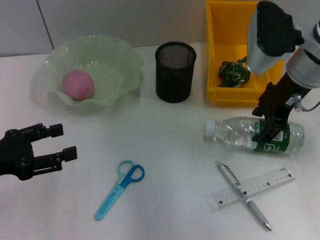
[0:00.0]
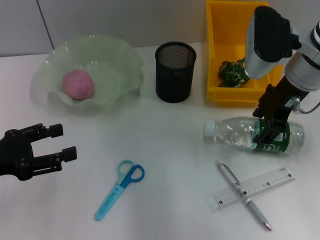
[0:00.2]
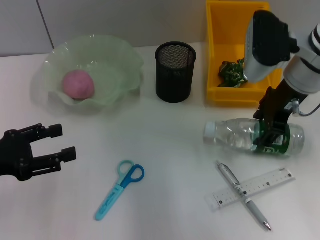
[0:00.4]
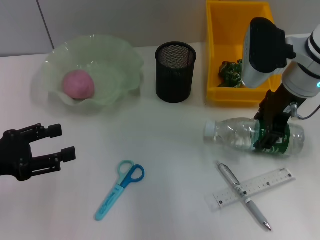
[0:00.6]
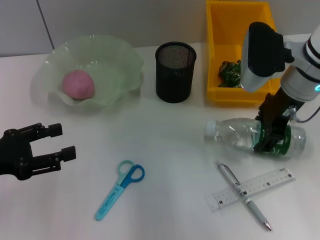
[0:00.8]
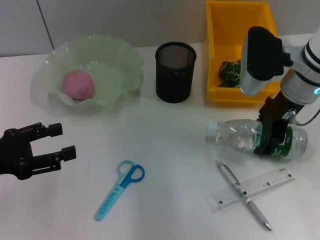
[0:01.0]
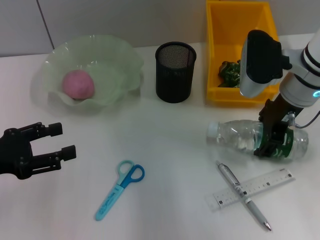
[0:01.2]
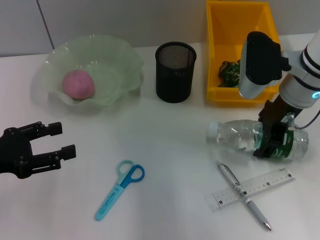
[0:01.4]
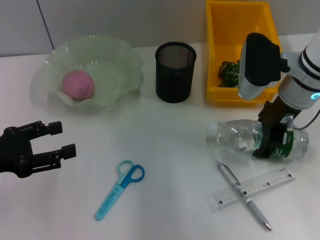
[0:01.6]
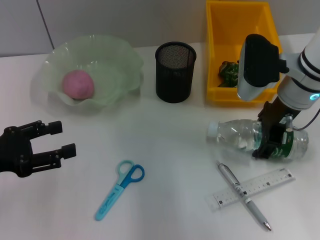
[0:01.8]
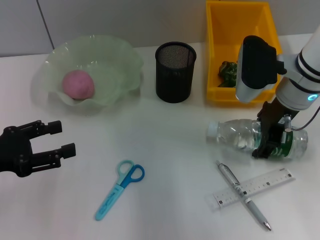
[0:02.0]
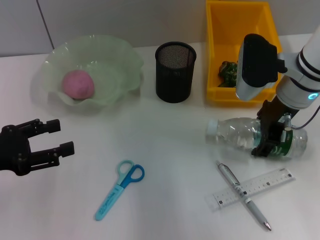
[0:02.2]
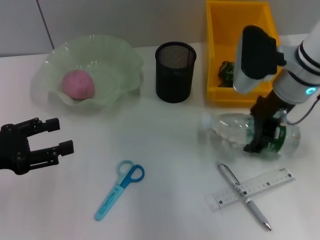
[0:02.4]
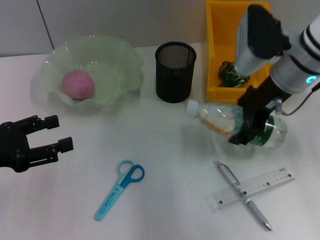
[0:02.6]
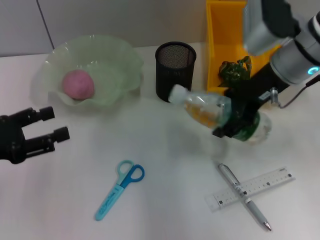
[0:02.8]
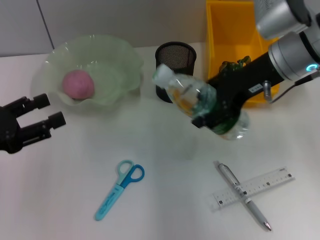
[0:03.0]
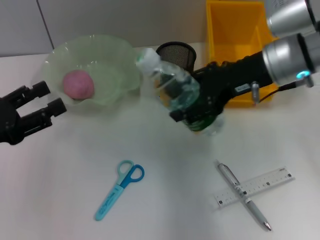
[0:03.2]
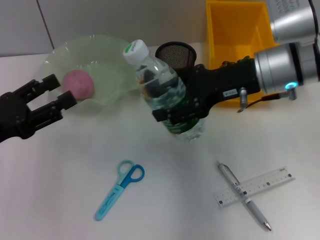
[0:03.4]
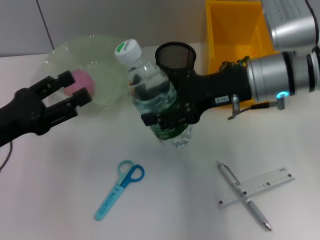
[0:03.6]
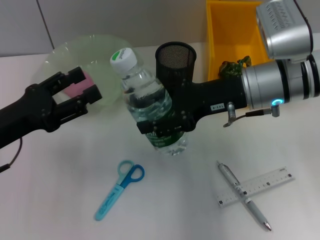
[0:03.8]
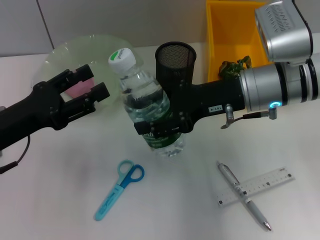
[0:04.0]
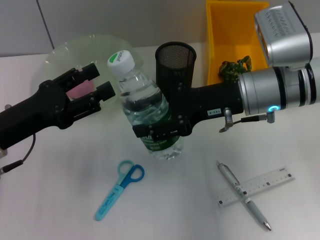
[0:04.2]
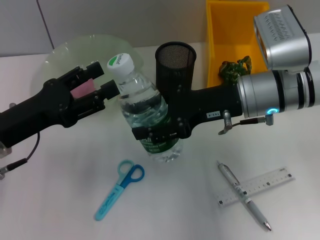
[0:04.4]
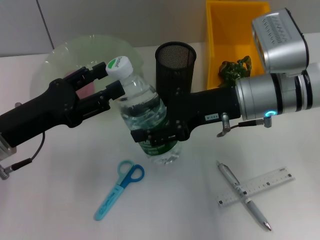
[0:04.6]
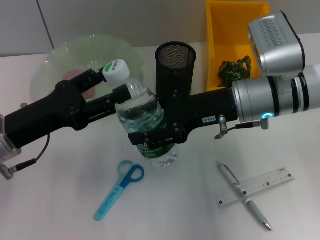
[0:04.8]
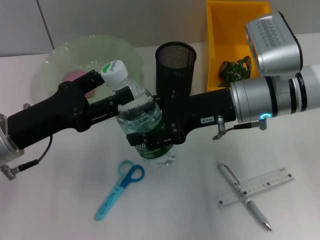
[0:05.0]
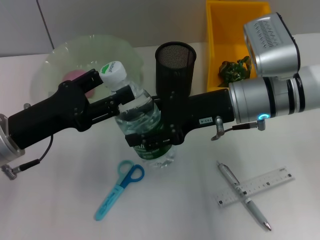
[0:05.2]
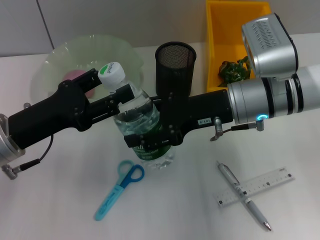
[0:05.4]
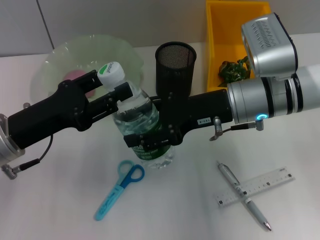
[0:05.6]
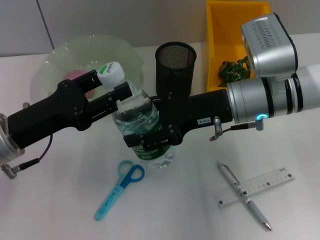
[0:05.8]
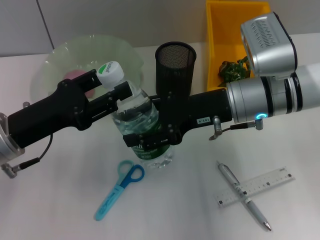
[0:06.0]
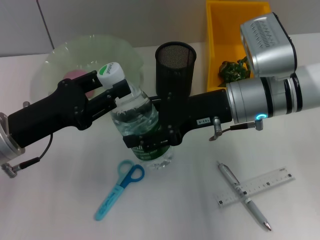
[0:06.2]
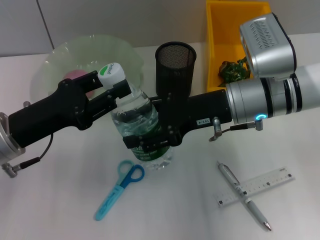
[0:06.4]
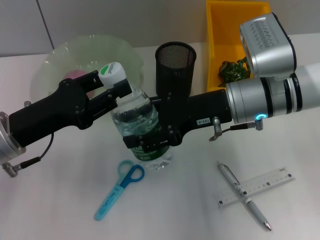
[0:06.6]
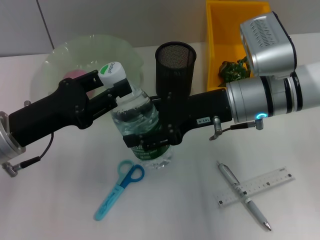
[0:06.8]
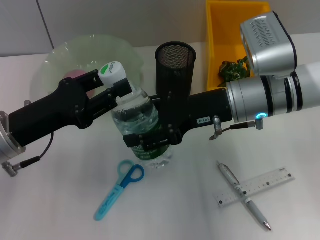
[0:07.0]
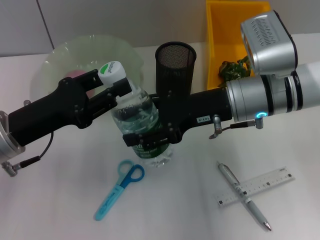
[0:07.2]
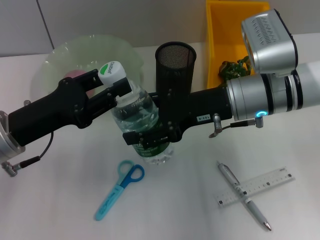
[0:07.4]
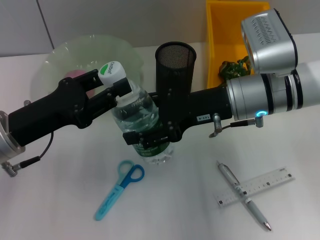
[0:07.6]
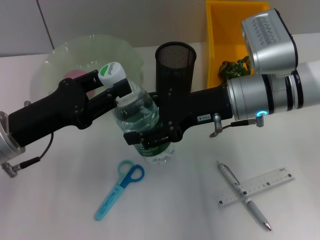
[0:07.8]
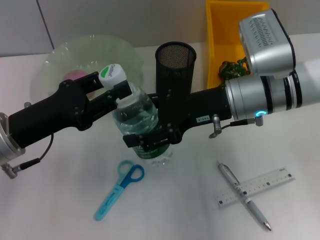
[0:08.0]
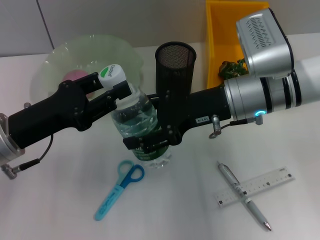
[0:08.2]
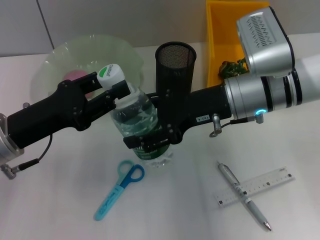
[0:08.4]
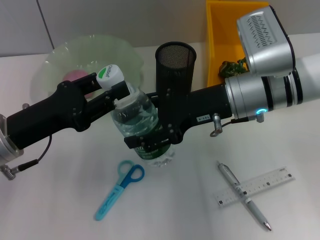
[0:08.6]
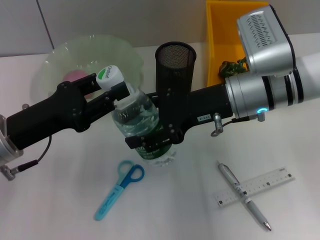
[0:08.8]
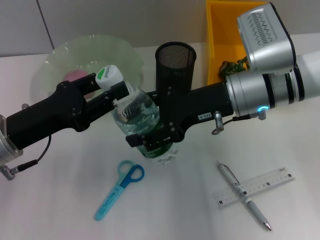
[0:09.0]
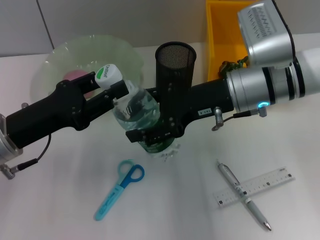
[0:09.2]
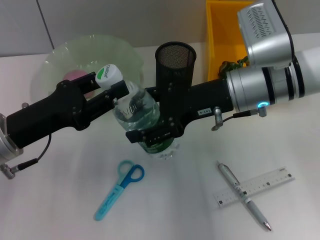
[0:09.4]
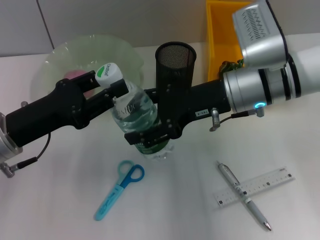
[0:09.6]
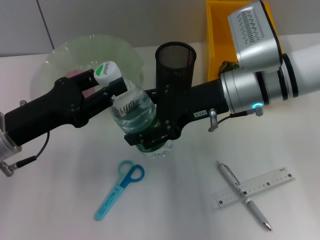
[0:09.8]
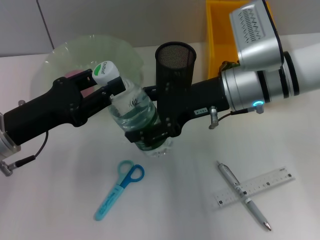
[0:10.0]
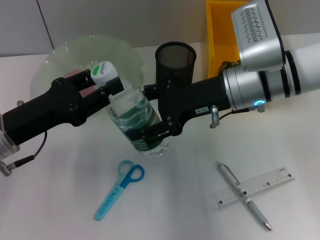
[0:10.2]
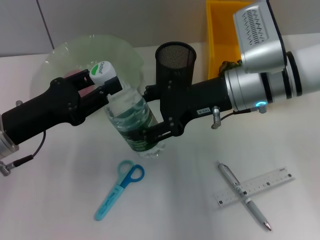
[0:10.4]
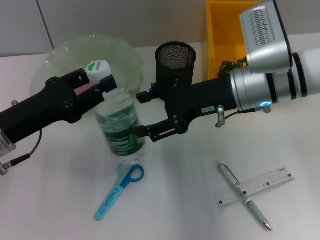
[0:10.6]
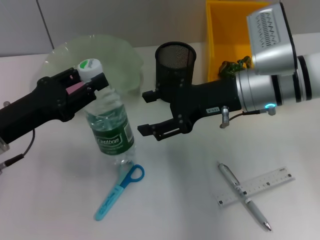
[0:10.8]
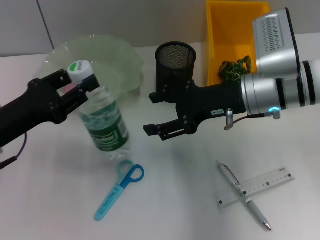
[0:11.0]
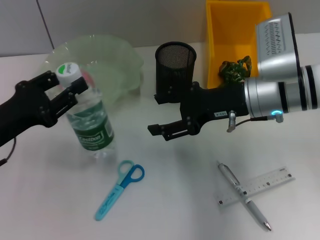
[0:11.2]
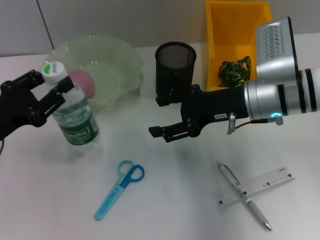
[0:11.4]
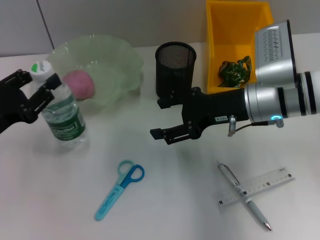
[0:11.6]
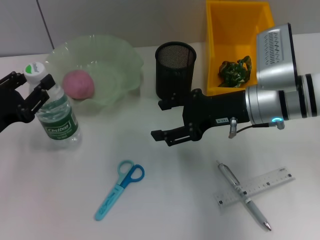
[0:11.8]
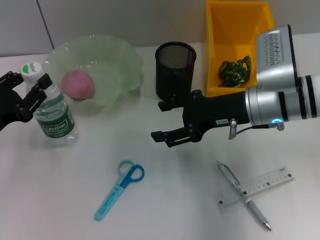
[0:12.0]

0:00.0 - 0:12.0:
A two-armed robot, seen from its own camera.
Step, 0:00.0 - 0:02.2: Grab the water bottle with the right hand.
Step, 0:02.4 - 0:10.4: Pass the water bottle from the right hand to the left hand.
0:00.0 - 0:01.6: There are only small adjustments of the grippers.
0:01.6 - 0:03.0: The right gripper goes about 5 cm upward.
0:03.0 - 0:04.4: The left gripper goes roughly 5 cm to the right. Meanwhile the right gripper is displaced downward by about 5 cm.
0:04.4 - 0:06.0: The left gripper closes up.
0:06.0 - 0:07.6: Both grippers stay about where they are.
0:07.6 - 0:10.4: The grippers make only small movements.
0:10.4 - 0:12.0: The left gripper is displaced to the left by about 5 cm.

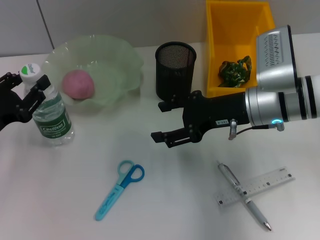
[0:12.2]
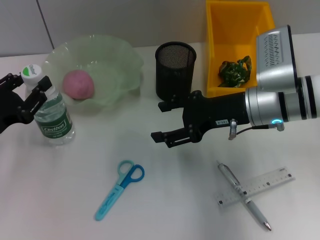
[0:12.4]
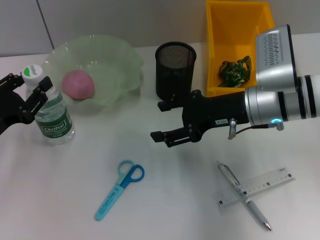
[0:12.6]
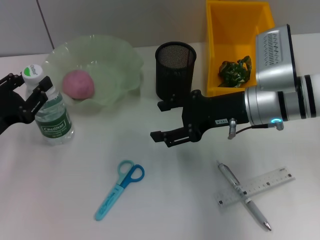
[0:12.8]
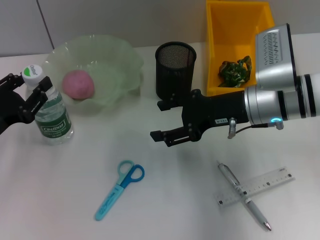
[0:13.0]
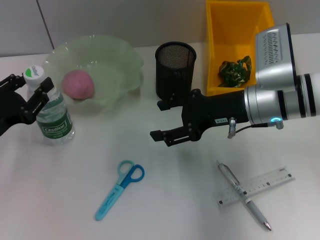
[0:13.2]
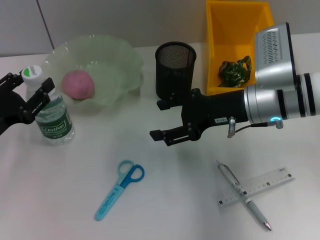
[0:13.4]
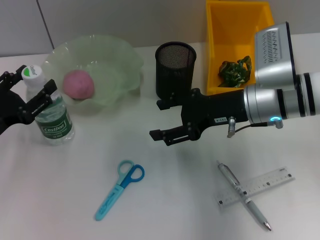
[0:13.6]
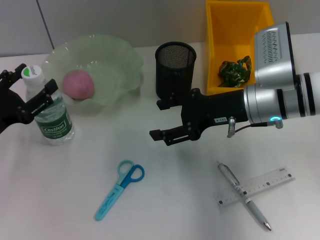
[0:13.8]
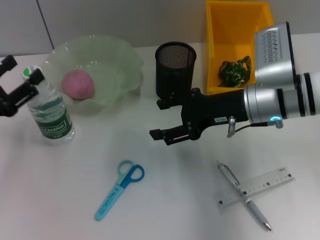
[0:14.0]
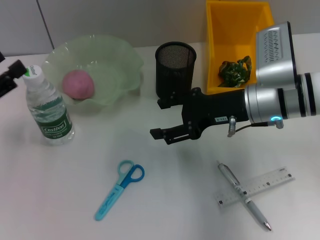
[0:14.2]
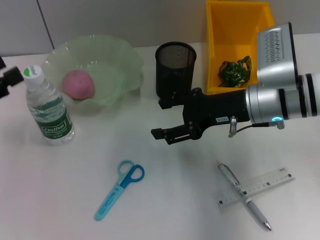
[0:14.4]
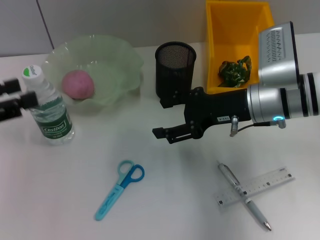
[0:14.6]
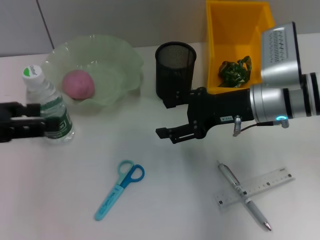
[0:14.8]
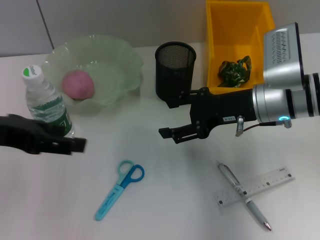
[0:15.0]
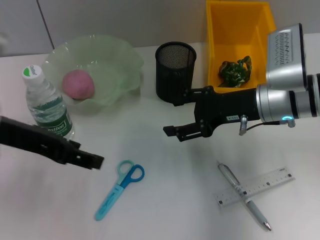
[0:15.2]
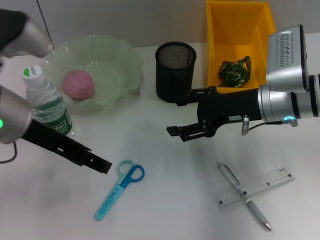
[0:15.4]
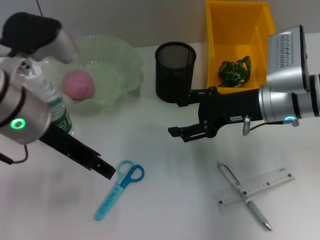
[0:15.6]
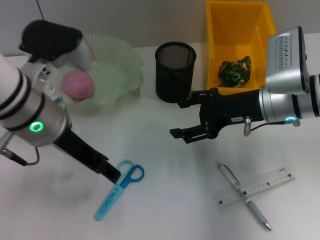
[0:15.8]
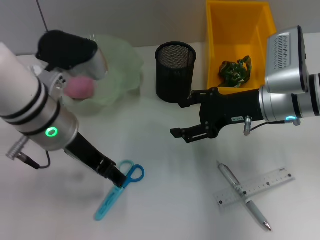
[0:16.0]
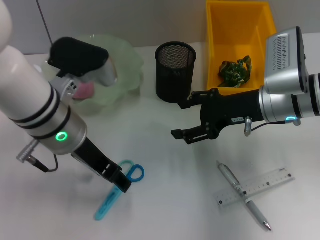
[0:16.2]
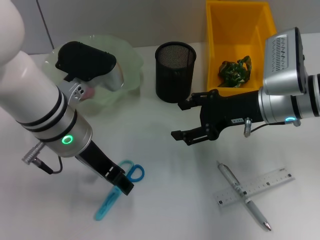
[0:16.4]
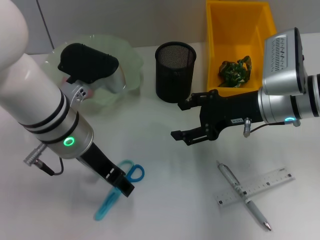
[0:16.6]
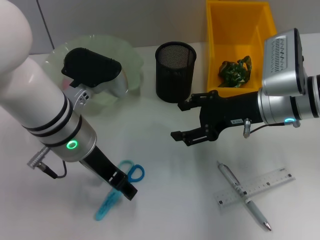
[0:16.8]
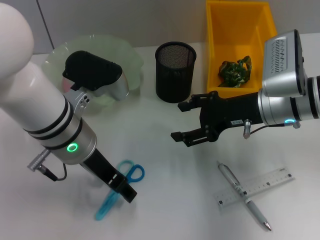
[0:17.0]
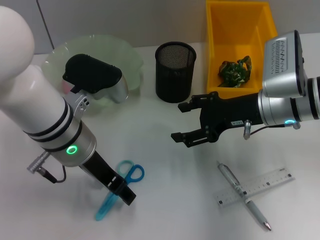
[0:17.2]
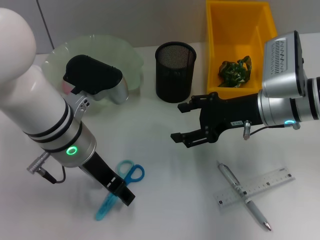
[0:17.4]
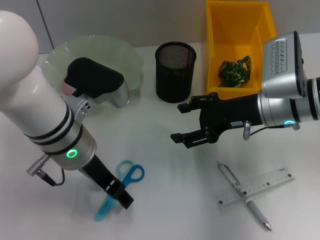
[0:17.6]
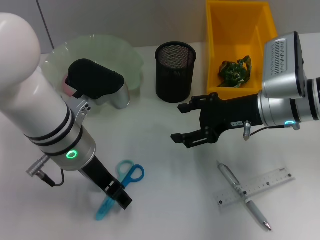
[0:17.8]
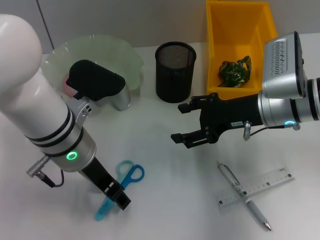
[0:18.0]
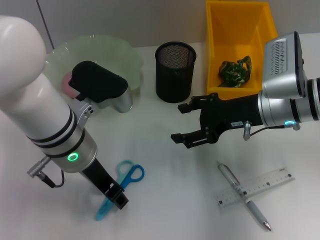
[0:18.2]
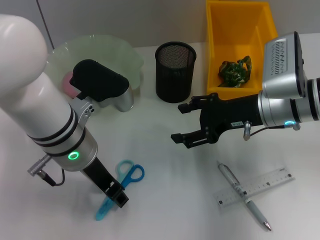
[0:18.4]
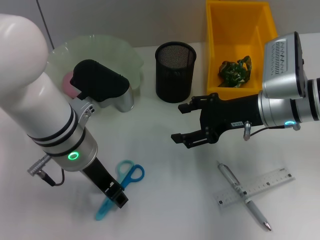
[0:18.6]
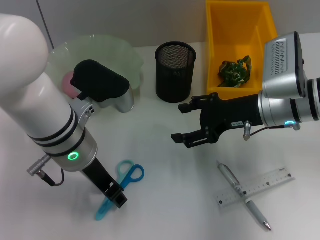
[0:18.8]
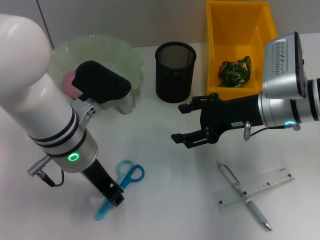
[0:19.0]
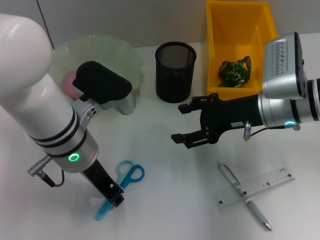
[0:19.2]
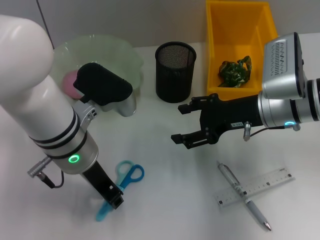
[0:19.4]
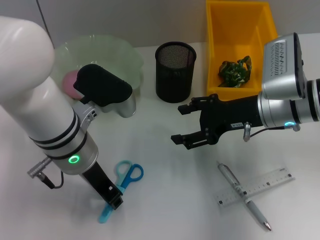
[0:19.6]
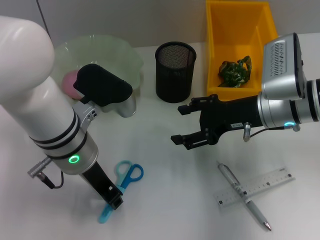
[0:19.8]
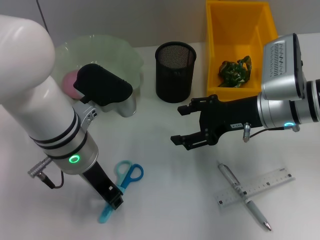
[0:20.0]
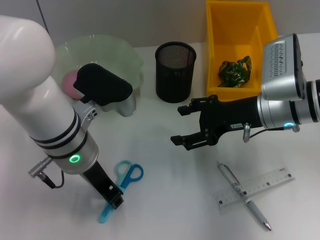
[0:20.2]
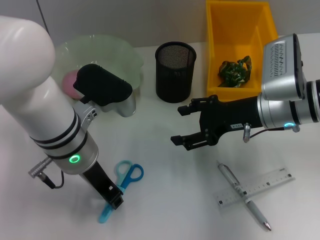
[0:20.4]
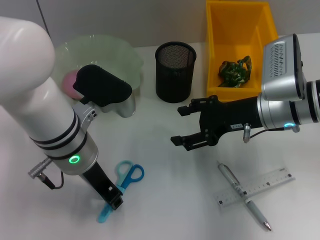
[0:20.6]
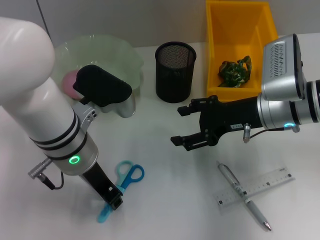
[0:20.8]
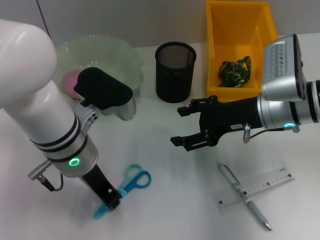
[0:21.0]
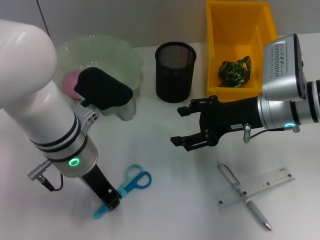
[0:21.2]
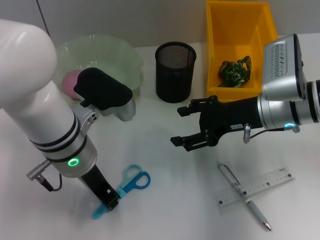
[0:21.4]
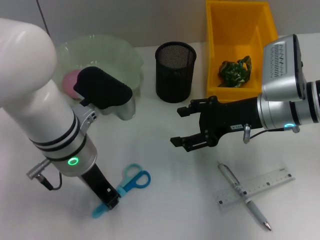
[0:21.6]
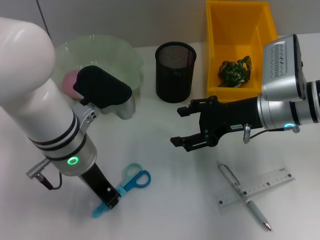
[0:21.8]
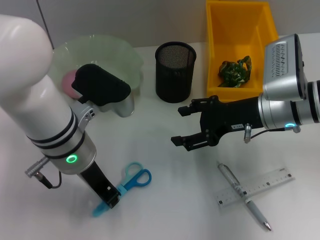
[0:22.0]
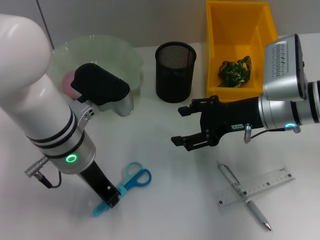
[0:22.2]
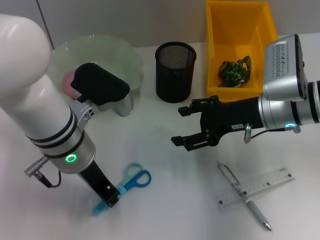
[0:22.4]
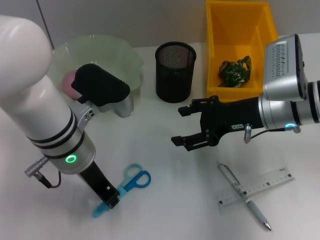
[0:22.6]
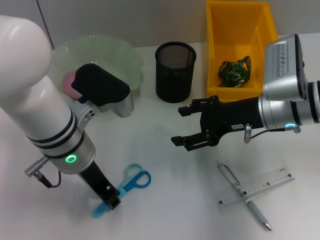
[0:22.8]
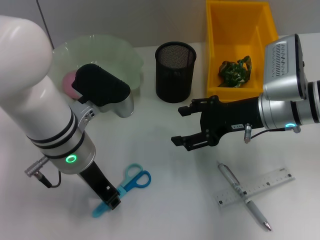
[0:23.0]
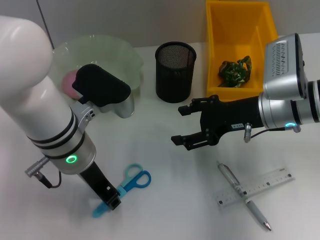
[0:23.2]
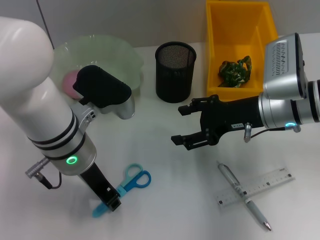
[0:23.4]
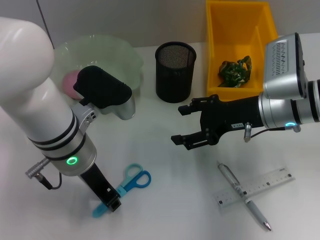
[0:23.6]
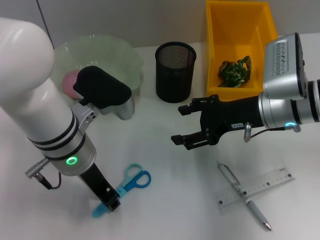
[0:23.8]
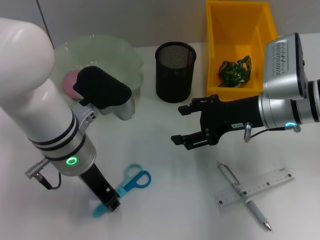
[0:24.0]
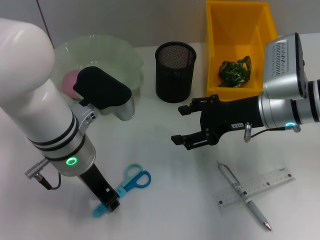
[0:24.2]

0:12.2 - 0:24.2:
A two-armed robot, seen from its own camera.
Step, 0:12.2 - 0:14.0: Place the water bottle on the table with the left hand.
0:12.2 - 0:13.8: The left gripper opens up.
0:13.8 - 0:15.2: The left gripper moves upward and to the right, approximately 15 cm.
0:15.2 - 0:16.6: The left gripper goes about 10 cm to the right and downward.
0:16.6 - 0:18.2: The grippers move only a little.
0:18.2 - 0:19.8: The left gripper closes its fingers.
0:19.8 - 0:24.2: Both grippers stay about where they are.
